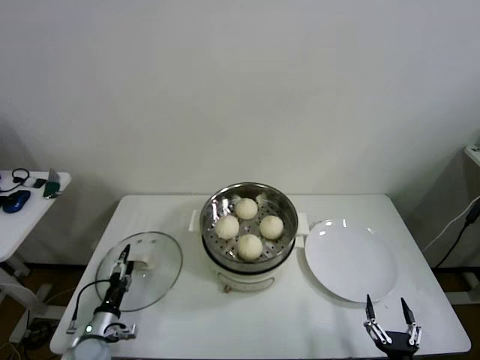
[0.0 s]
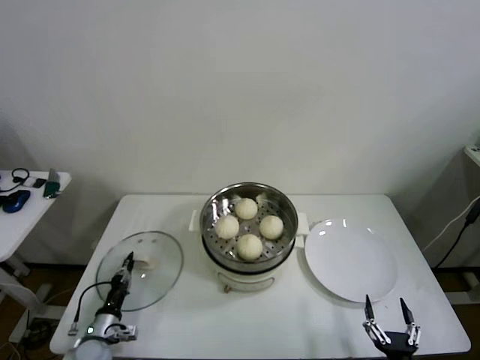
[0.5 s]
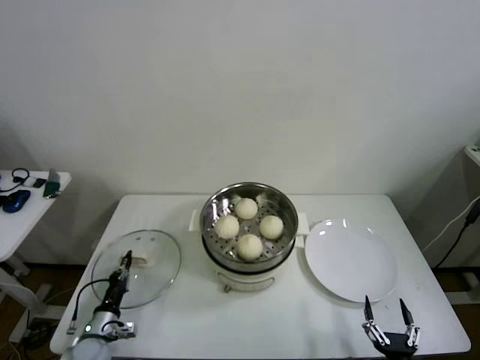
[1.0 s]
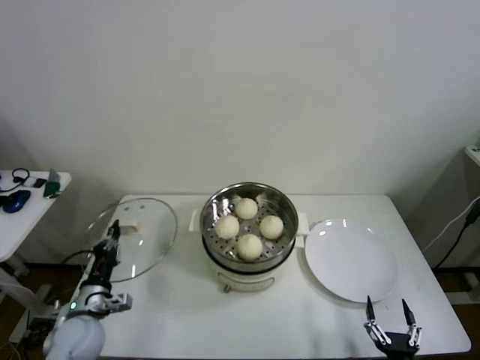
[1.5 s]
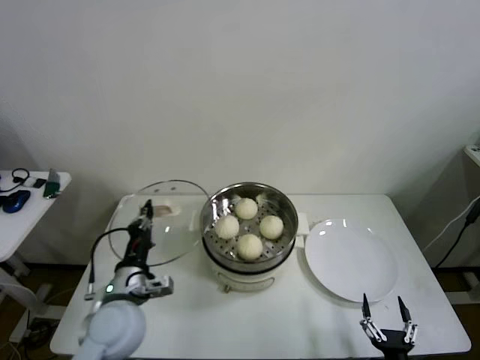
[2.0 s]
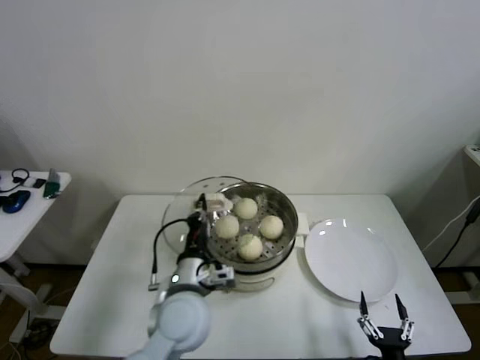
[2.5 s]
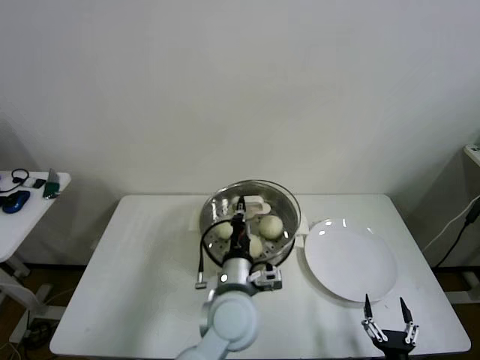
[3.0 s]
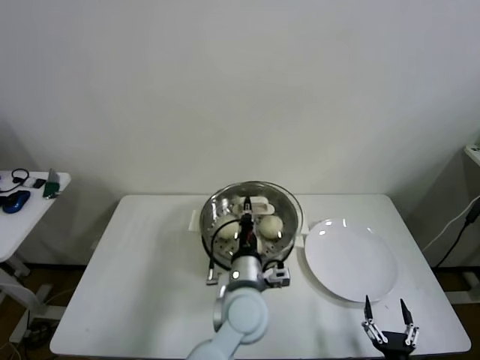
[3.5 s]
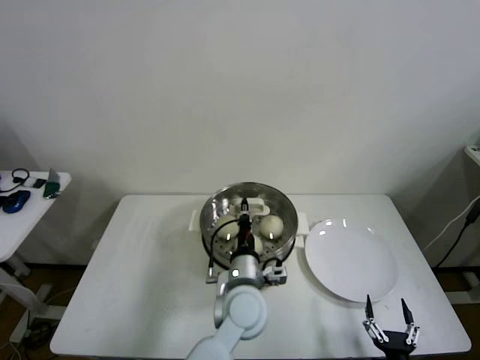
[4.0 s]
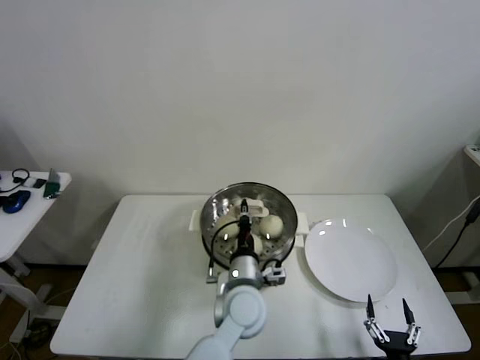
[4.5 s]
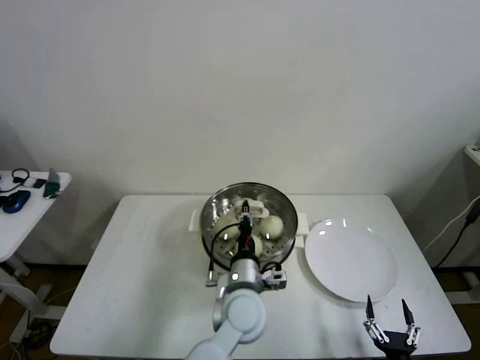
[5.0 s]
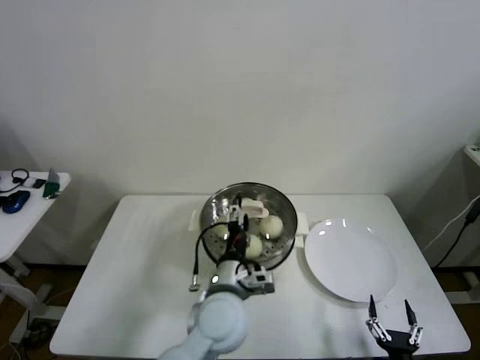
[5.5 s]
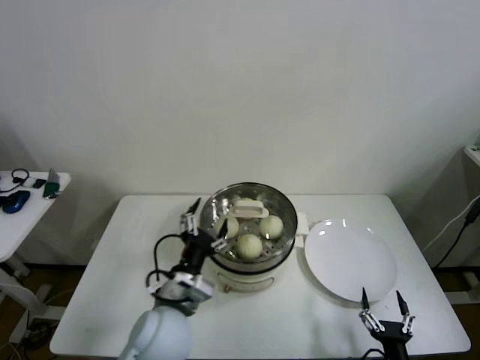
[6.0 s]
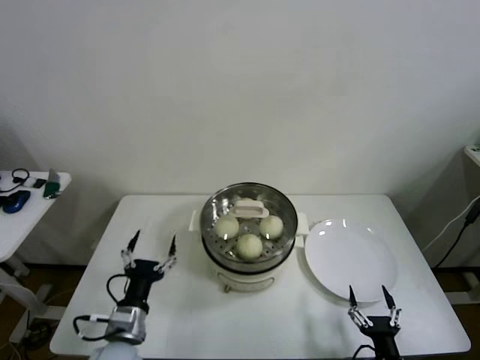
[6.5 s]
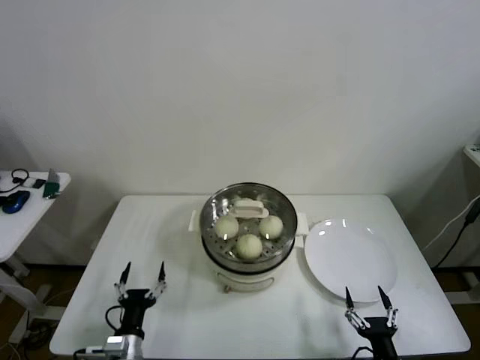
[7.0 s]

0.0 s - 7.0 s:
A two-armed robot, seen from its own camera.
Step, 1.0 s - 5.0 s: Place the pot lid on the steamer with left gripper.
0.0 s - 2.0 s: The left gripper is displaced upward and to the right by some 25 cm, and closes up.
2.0 s - 3.5 s: The left gripper travels to the right by some 25 cm.
3.5 s - 5.0 s: The grippers stay close to where they were, moving slightly.
5.0 s - 7.0 s: The left gripper is displaced to the left, downward and backward by about 30 cm, and opens up.

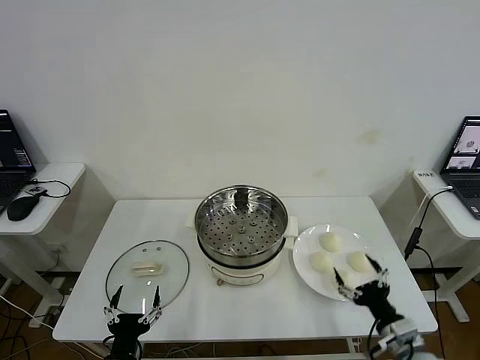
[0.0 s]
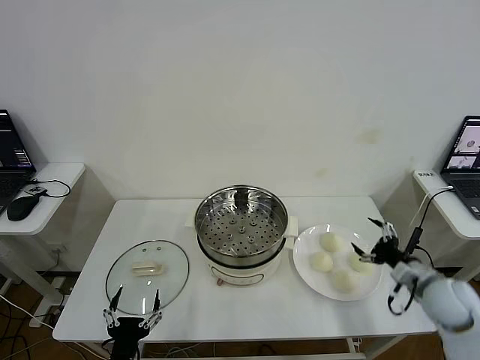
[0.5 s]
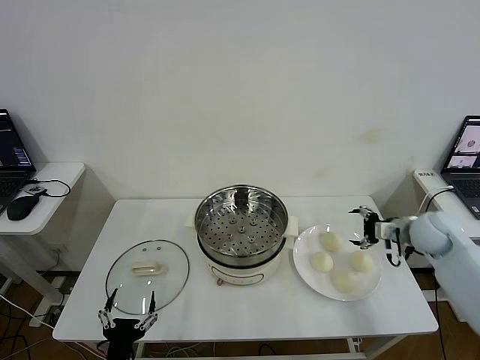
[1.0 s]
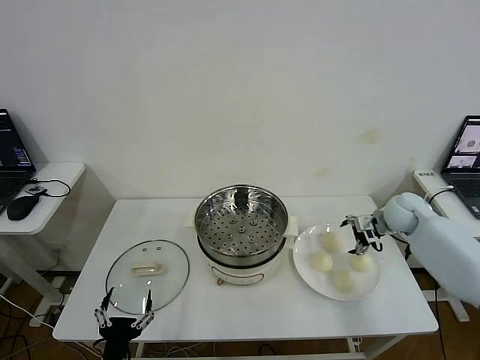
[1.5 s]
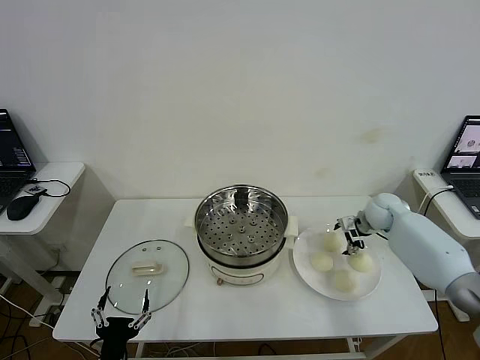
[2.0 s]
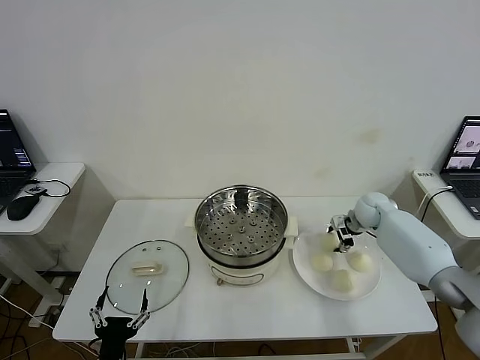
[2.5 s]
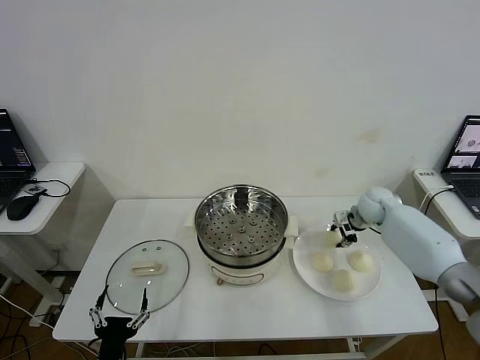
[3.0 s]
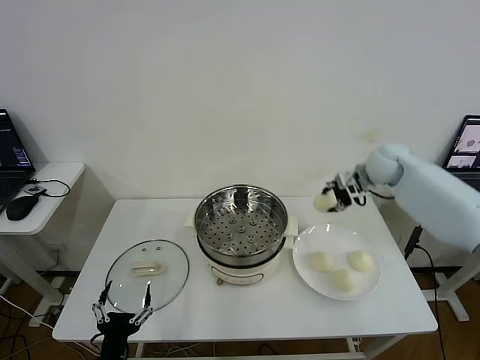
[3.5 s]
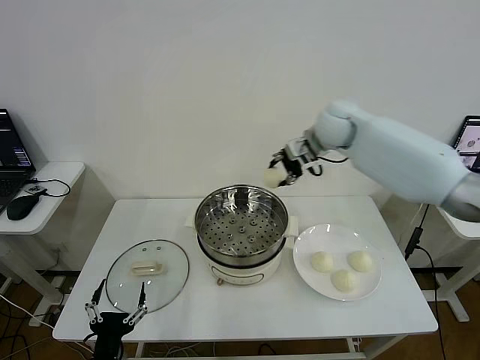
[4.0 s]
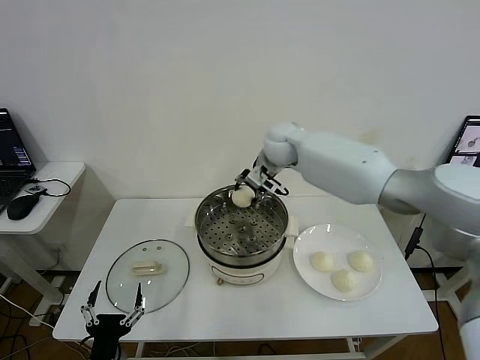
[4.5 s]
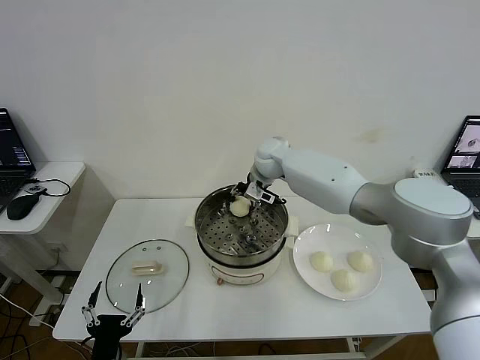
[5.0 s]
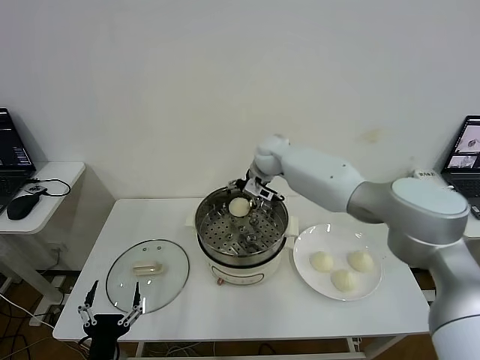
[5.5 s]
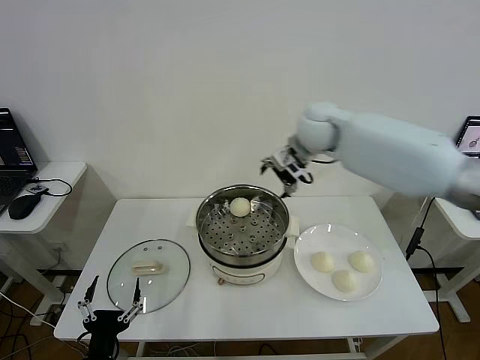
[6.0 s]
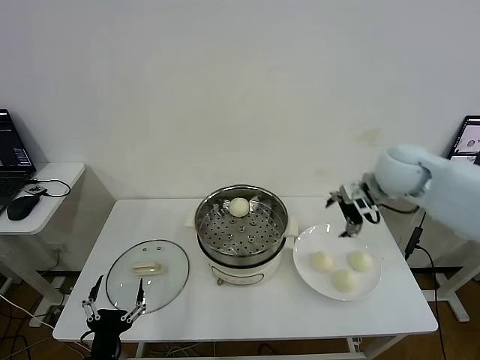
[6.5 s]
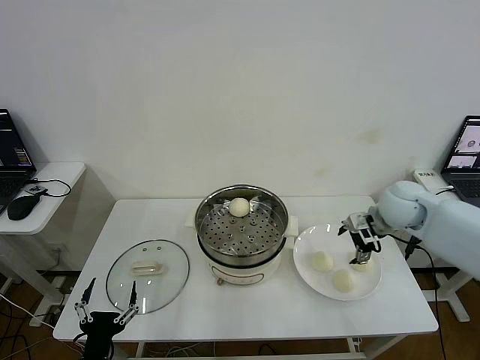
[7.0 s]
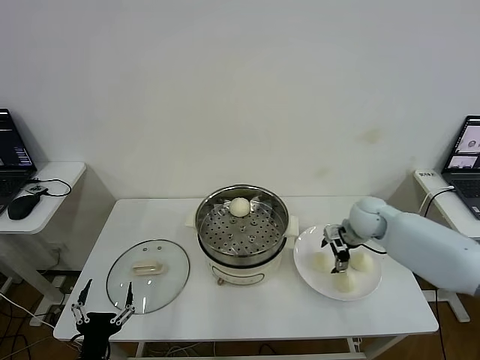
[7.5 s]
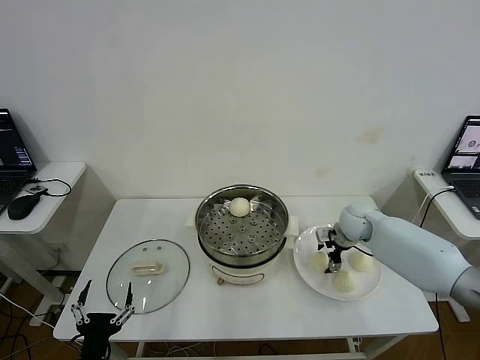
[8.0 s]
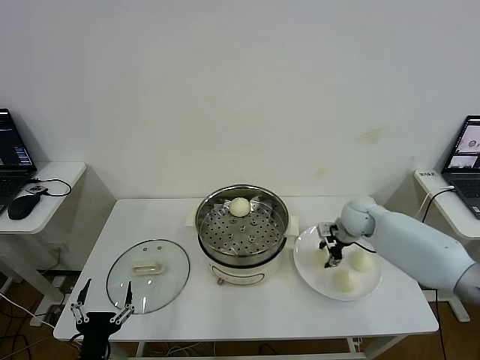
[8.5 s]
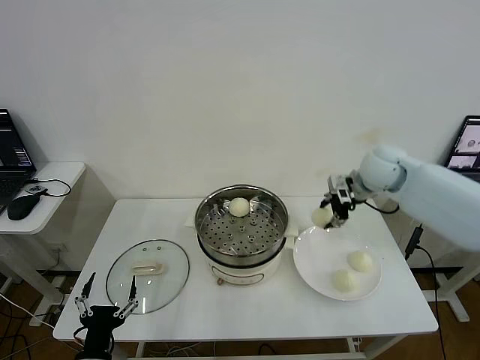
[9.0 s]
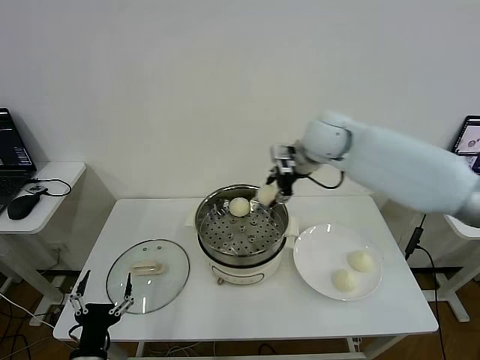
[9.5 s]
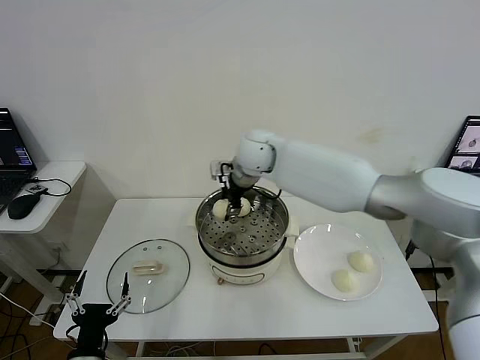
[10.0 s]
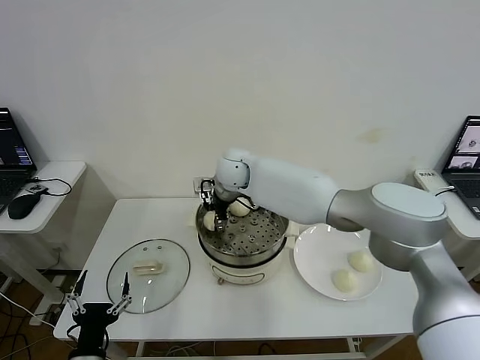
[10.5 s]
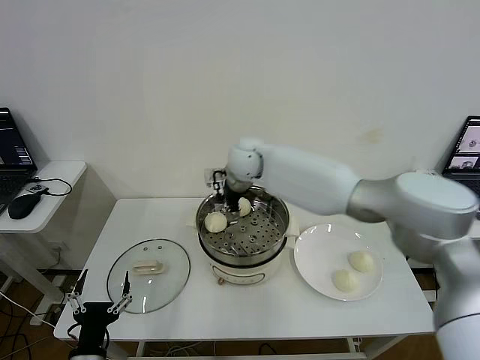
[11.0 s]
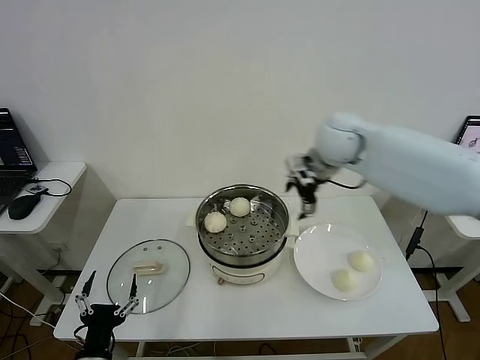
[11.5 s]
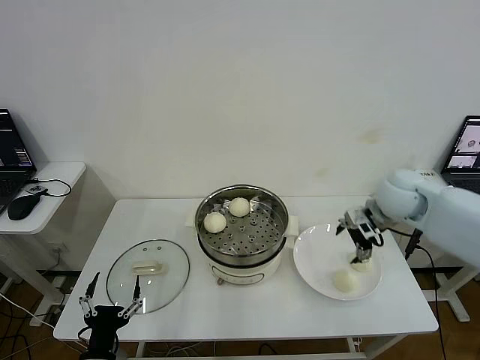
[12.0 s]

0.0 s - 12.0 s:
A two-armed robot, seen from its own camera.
Step, 0.0 s - 2.5 s: Grasp the baozi in the plate with right gripper.
Step, 3.0 s - 5.5 s: Place the baozi on the steamer with right gripper.
Step, 6.0 s - 8.0 s: Grasp the baozi in the plate with right gripper.
Step, 8.5 s - 11.0 s: Place the baozi on the steamer with right gripper.
2.0 s - 4.0 s: The right gripper moves upward and to the left, approximately 30 cm, and closes its fingers.
4.0 s - 6.0 s: The right gripper goes downward and returns, about 10 cm each way, and opens its fingers.
6.0 s - 8.0 s: The right gripper moves downward and to the right, some 25 cm.
8.0 s - 10.0 s: The right gripper goes roughly 35 cm to the left and upward, and closes up.
10.0 s - 12.0 s: The right gripper is displaced to the right by roughly 30 cm, and opens its fingers.

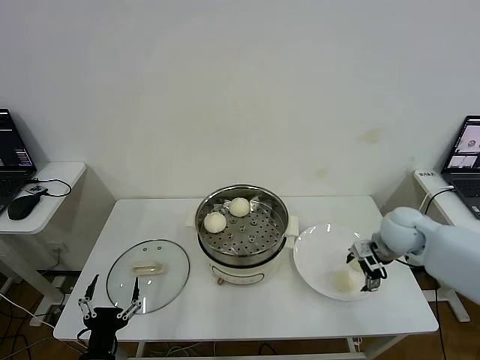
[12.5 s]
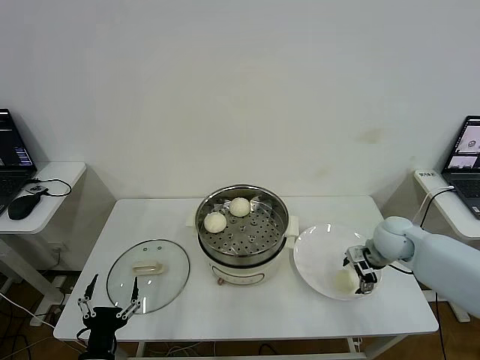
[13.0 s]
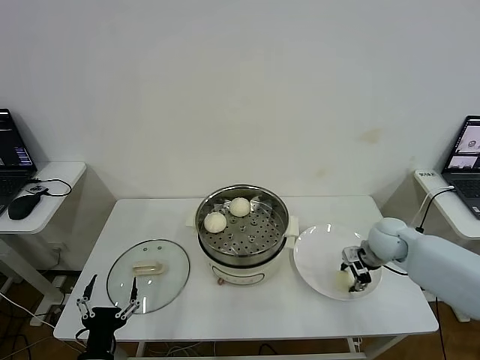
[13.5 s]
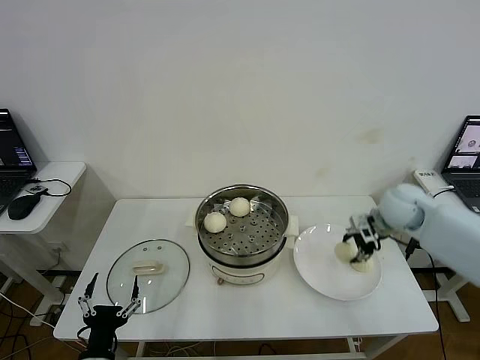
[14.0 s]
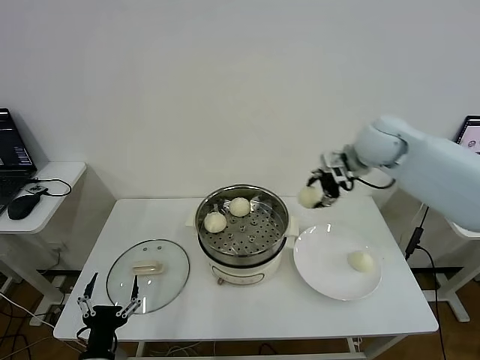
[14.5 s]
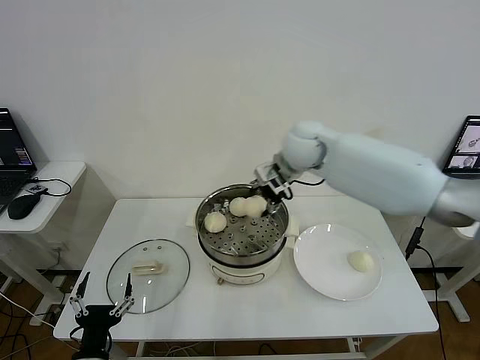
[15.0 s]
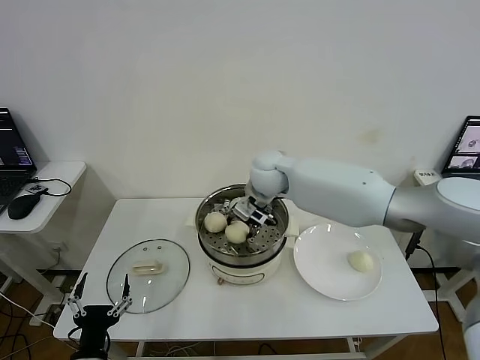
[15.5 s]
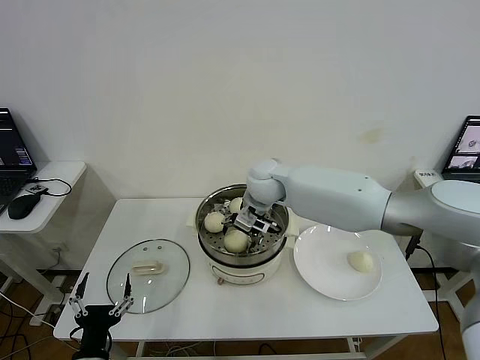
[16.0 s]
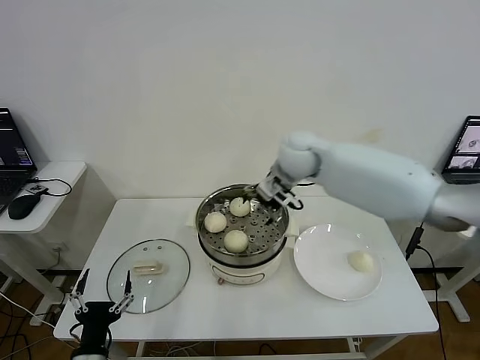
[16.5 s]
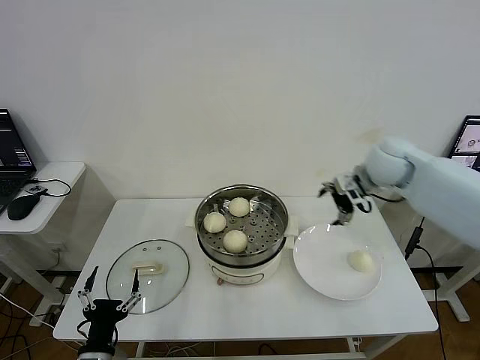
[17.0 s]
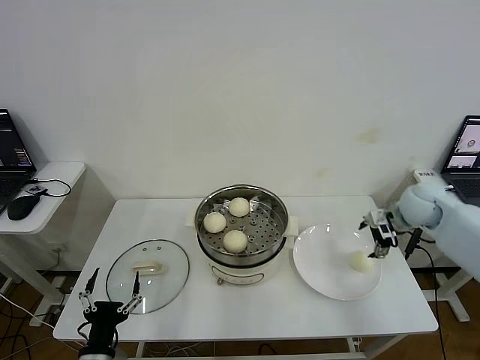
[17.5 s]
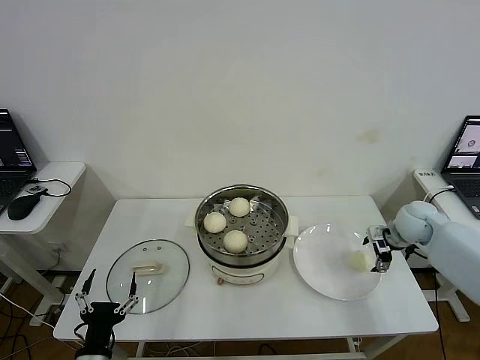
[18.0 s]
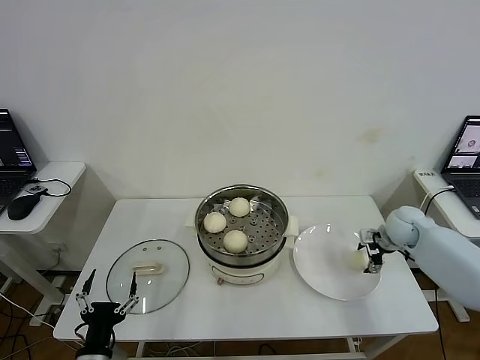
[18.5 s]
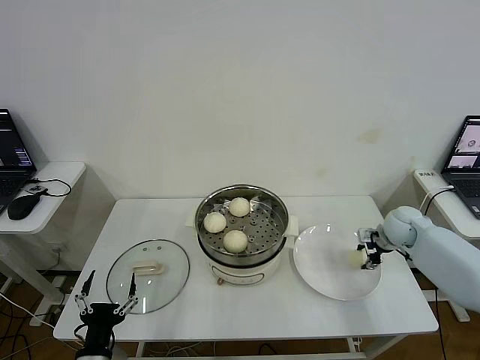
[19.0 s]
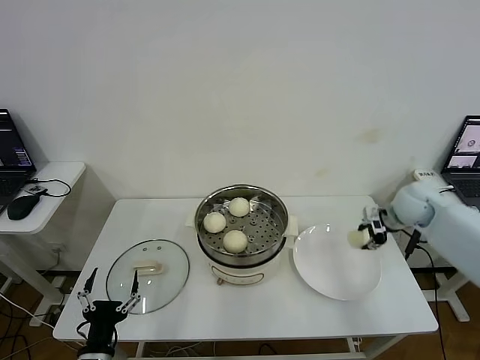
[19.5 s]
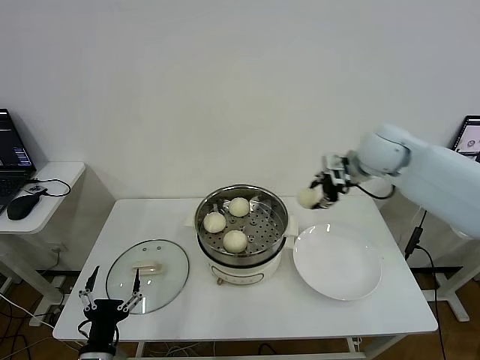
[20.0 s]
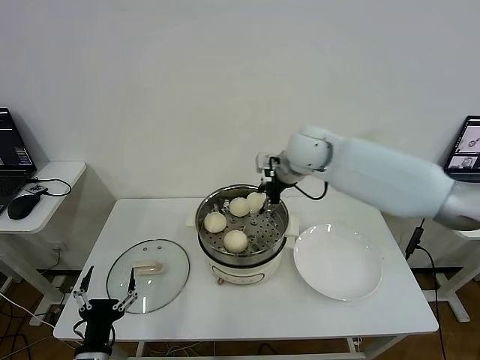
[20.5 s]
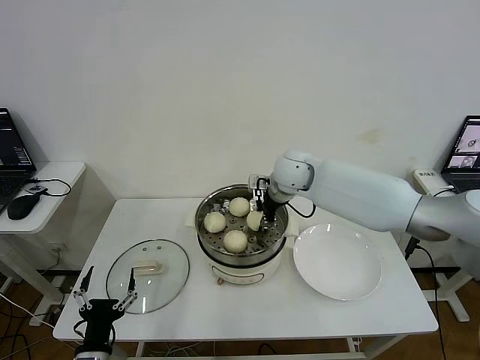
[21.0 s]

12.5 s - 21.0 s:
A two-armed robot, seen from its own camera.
Step, 14.0 s - 16.0 s: Place the baozi on the steamer with right gripper.
Step, 16.5 s - 19.0 s: Grasp the baozi in the plate with right gripper.
12.5 s - 14.5 s: The right gripper moves upward, to the left and forward, roughly 25 cm, and closes up.
14.5 s - 16.5 s: The right gripper shifts approximately 10 cm to the left, and opens.
16.5 s - 19.0 s: The right gripper shifts roughly 35 cm to the right and downward, and closes.
19.0 s - 21.0 s: The right gripper shifts about 35 cm to the left and upward.
